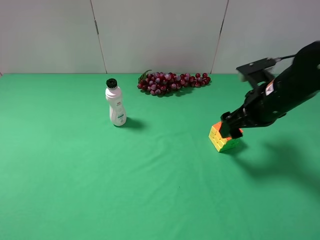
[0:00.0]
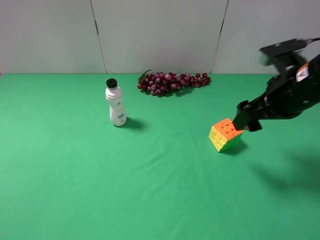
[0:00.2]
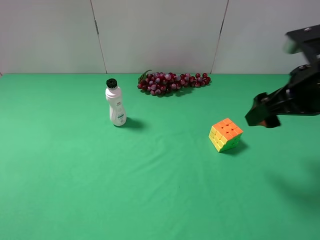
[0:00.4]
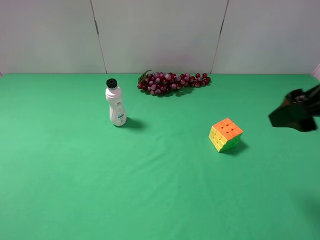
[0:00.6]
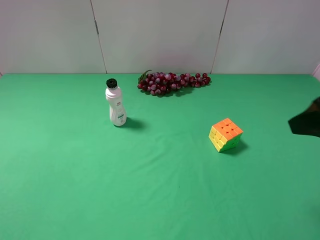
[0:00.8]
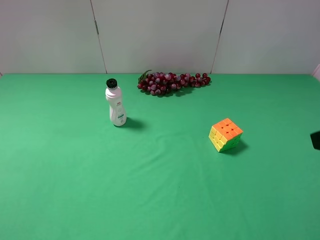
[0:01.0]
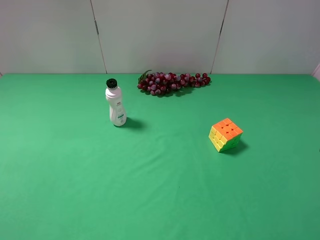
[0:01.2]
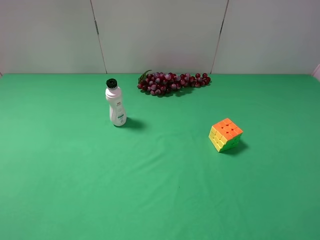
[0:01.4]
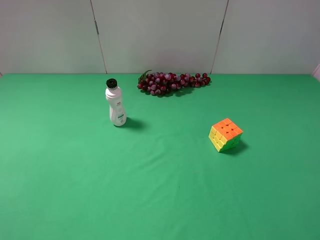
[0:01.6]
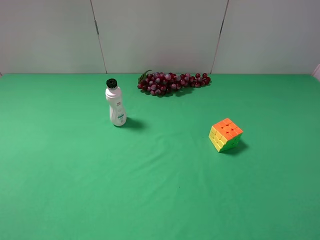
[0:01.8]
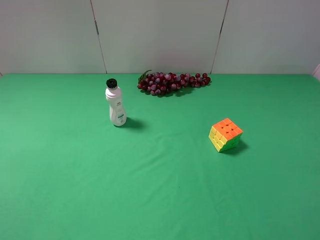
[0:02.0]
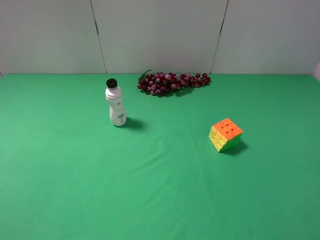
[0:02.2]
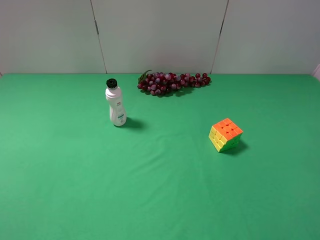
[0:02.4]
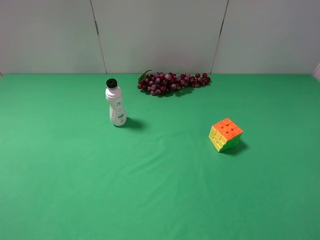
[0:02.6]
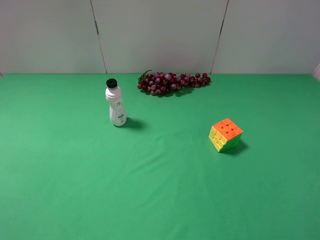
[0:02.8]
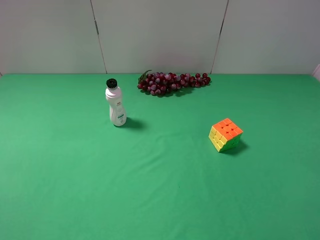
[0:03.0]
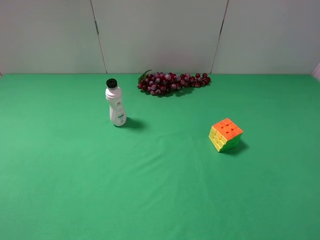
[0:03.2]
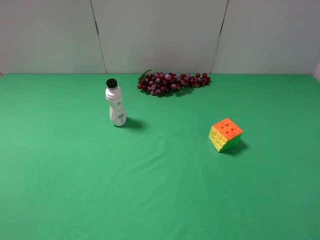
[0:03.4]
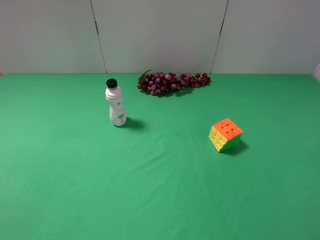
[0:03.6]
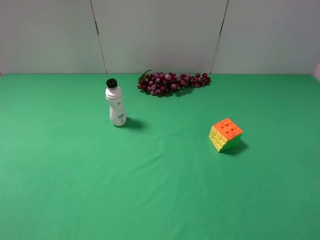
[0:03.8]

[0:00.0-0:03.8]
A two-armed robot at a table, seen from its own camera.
Task of the whole recording: use the left gripper to pick up the item and transfer it from the left gripper to the right gripper.
0:00.0 to 0:01.2: The right gripper travels backward and upward by about 20 cm.
0:02.6 to 0:03.8: The two grippers keep their place.

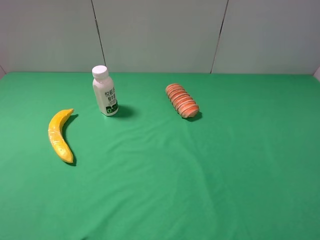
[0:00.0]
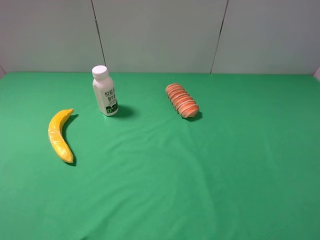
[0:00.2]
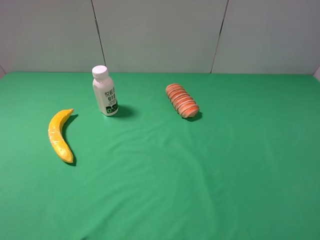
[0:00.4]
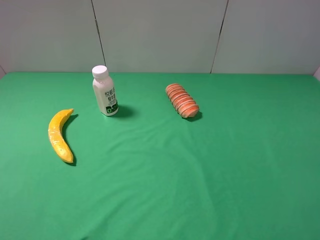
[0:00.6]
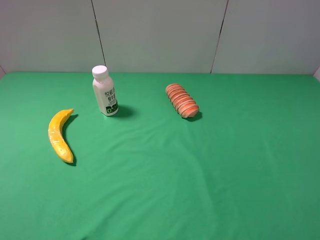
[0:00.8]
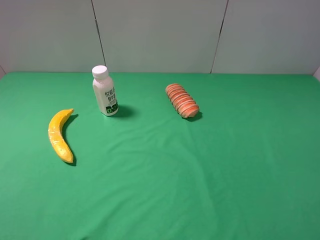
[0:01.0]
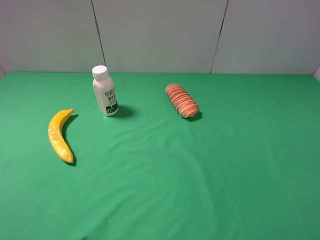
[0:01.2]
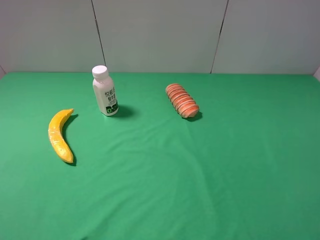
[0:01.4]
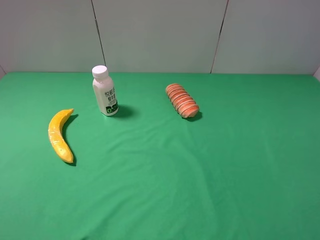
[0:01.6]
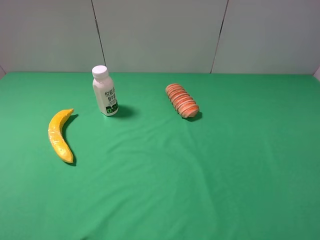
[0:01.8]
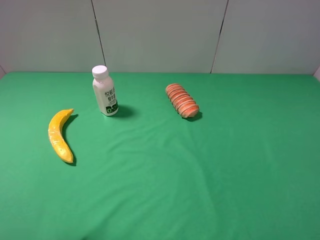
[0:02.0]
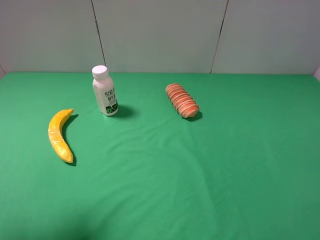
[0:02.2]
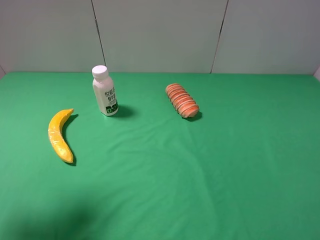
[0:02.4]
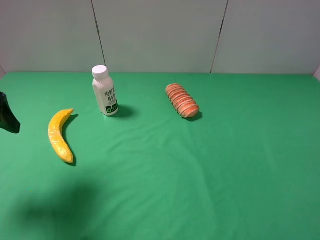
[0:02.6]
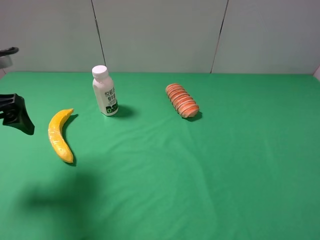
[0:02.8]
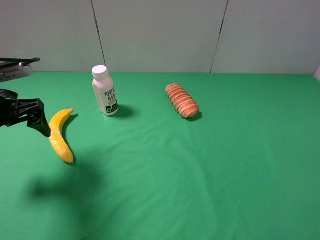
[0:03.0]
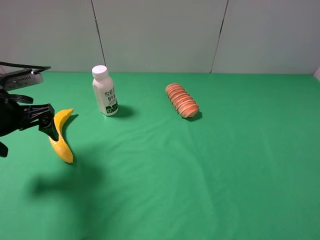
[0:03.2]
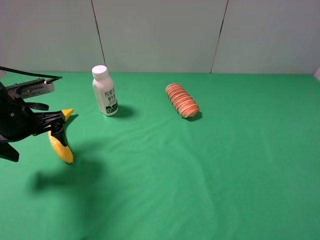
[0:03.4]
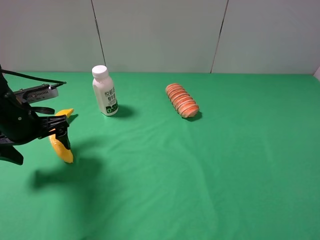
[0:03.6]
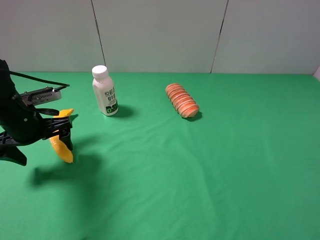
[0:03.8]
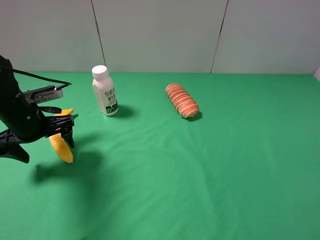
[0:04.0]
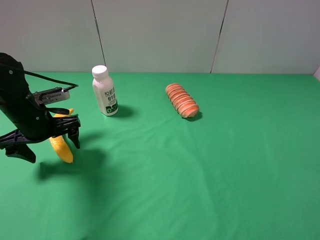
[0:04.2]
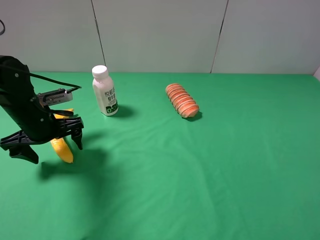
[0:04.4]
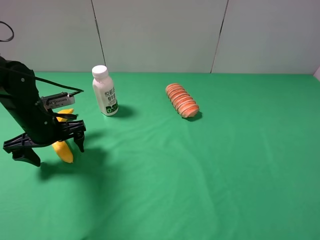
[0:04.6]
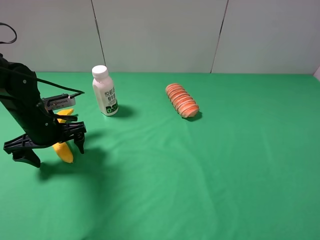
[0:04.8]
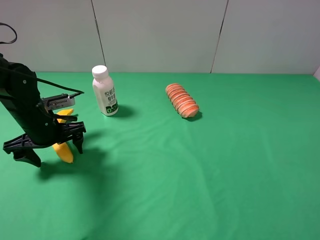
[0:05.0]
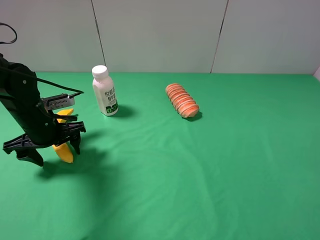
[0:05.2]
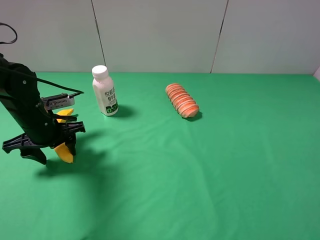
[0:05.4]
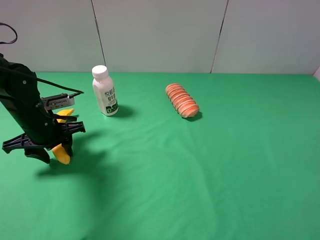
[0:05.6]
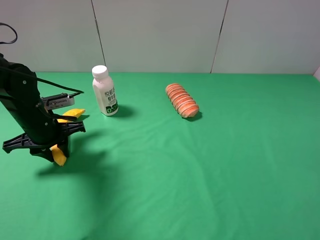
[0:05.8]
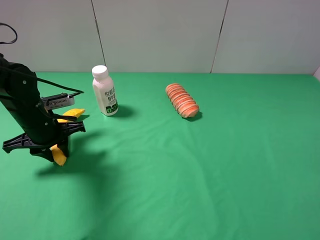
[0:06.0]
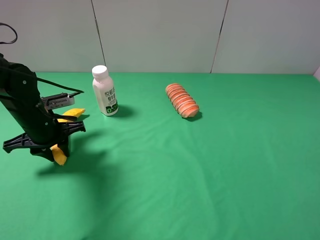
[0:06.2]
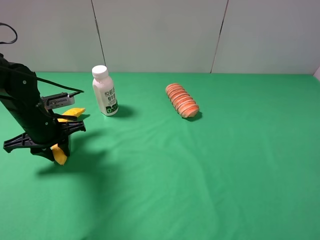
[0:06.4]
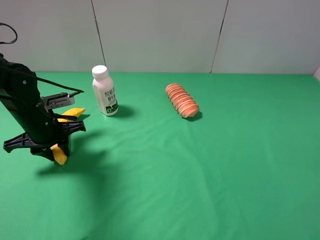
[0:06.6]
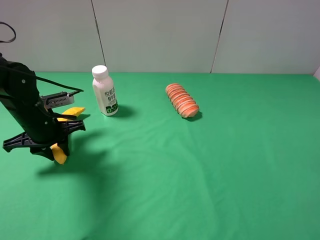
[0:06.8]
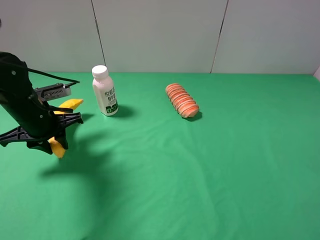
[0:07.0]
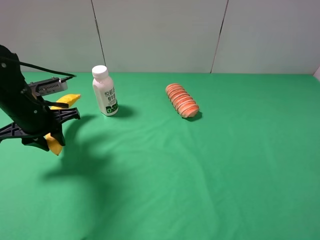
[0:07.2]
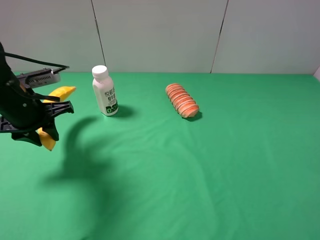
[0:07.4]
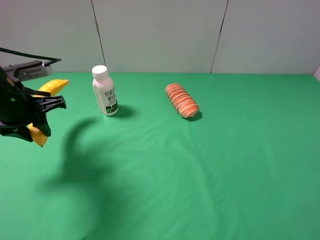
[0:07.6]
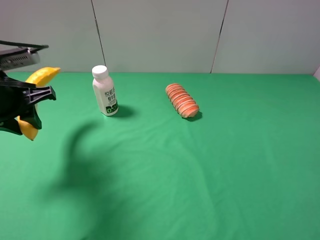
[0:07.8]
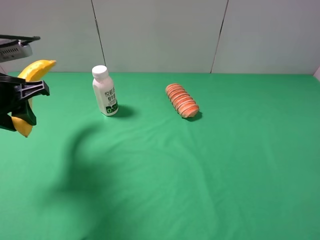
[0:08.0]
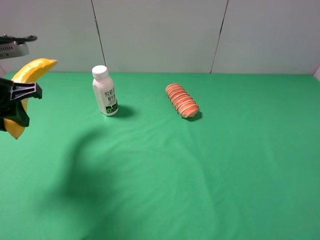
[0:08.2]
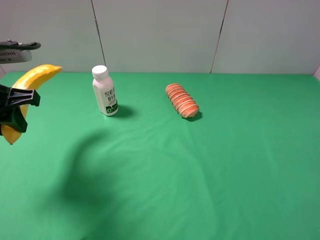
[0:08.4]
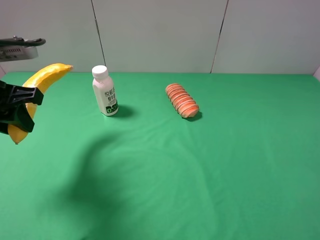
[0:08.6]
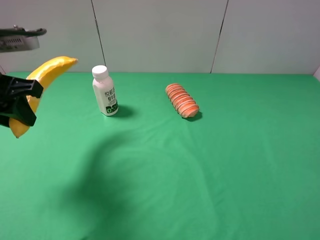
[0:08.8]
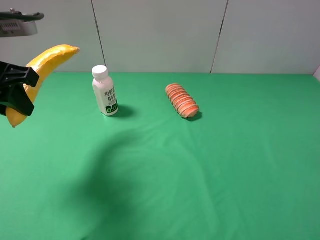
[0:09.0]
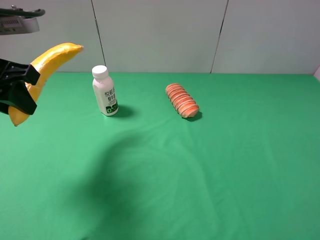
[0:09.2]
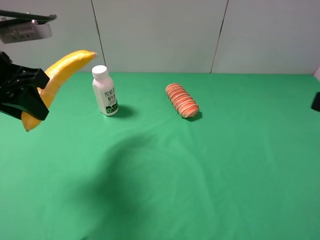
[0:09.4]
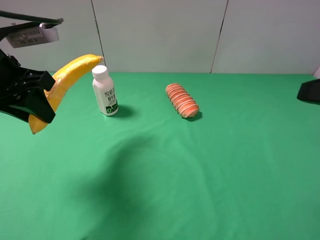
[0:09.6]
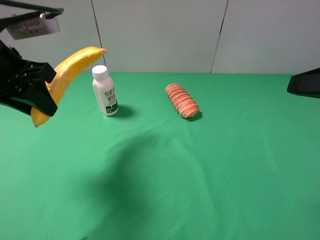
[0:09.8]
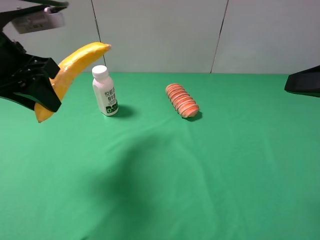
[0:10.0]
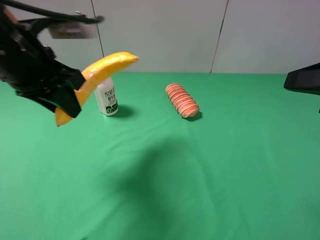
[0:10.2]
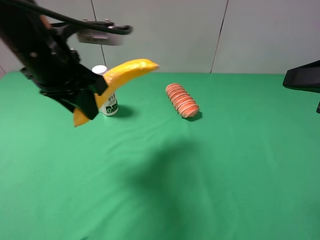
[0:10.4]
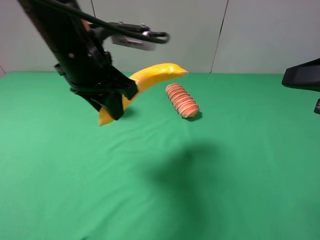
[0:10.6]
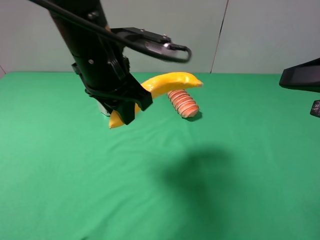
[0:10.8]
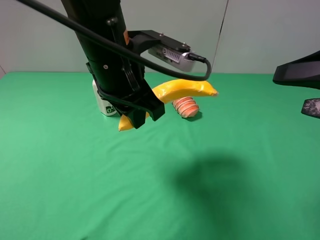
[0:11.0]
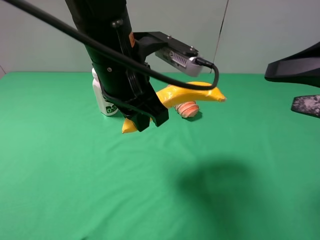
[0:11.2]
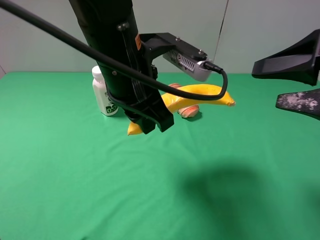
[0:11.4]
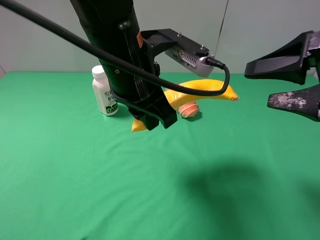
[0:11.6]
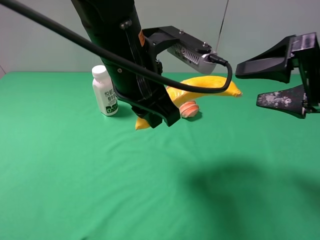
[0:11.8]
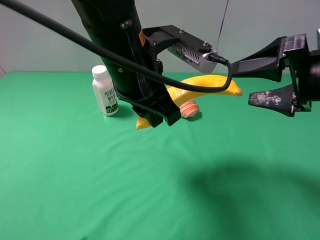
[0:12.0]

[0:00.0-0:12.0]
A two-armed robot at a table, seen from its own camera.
Task of the whole recording: use the left gripper to pick up the item and transfer it from the left gripper to the right gripper.
Step, 0:00.0 to 0:06.4: Use the left gripper to grab the banana on the left side of the table.
0:01.6 to 0:03.0: The left gripper is displaced forward and downward by approximately 25 cm.
0:03.0 to 0:04.4: The left gripper travels downward by about 10 cm.
0:04.4 to 0:06.0: The left gripper closes its fingers.
0:06.0 to 0:07.6: The left gripper heads upward, covering about 10 cm.
0:07.6 to 0:09.0: The left gripper shifts approximately 10 cm upward.
0:09.0 to 0:10.4: The left gripper moves to the right, roughly 10 cm, while the right gripper travels forward by roughly 10 cm.
0:10.4 to 0:12.0: The left gripper shifts some 10 cm to the right. Meanwhile the right gripper moves forward, approximately 10 cm.

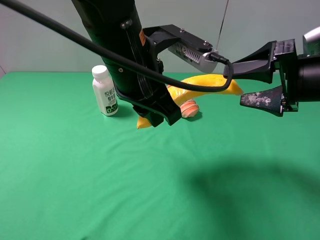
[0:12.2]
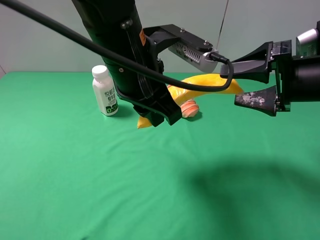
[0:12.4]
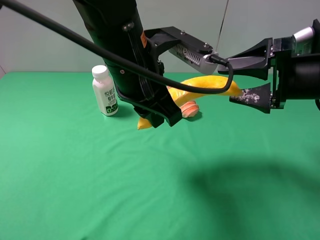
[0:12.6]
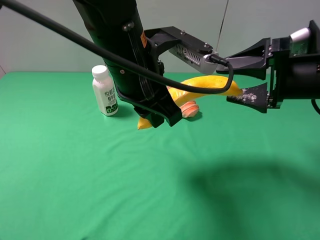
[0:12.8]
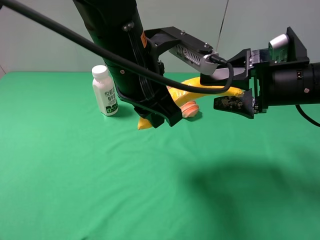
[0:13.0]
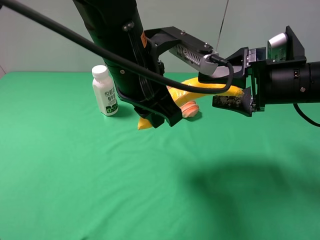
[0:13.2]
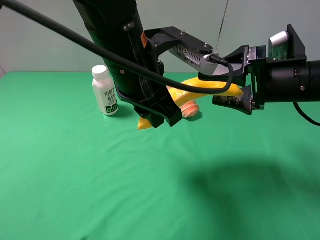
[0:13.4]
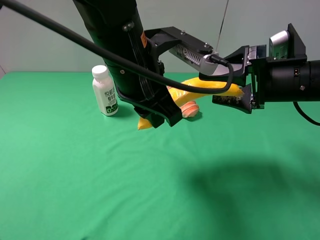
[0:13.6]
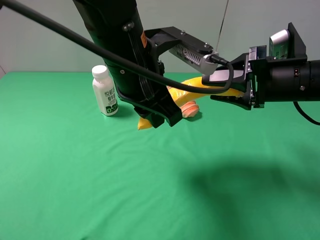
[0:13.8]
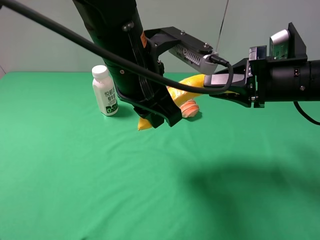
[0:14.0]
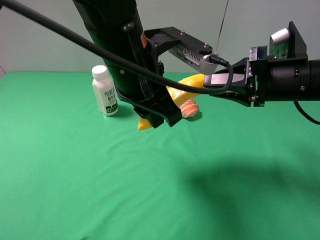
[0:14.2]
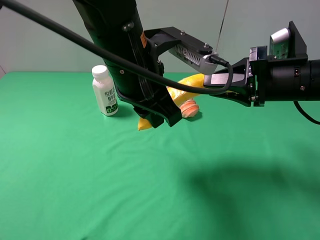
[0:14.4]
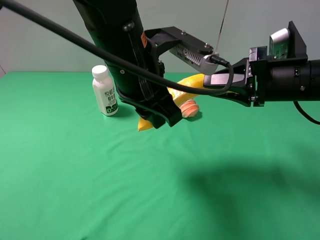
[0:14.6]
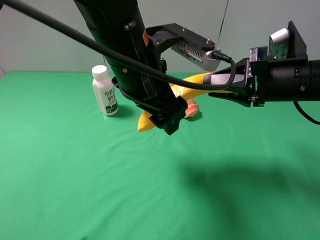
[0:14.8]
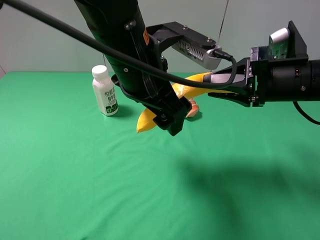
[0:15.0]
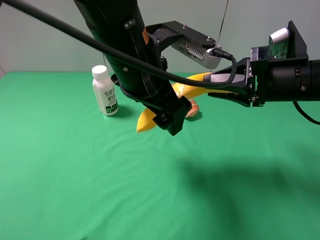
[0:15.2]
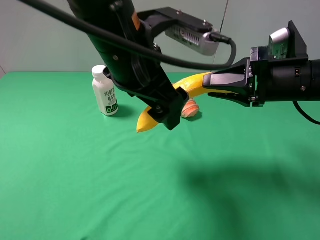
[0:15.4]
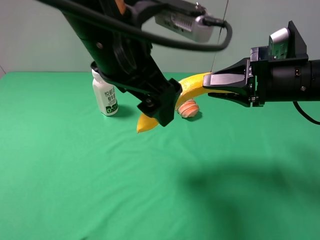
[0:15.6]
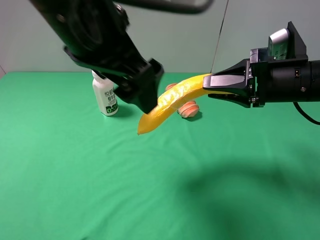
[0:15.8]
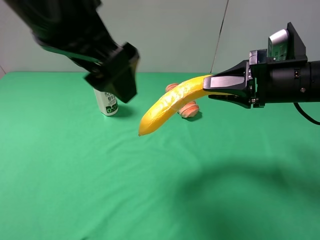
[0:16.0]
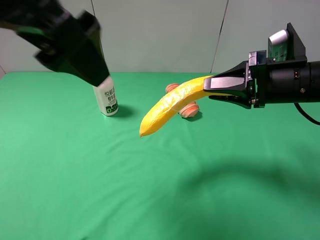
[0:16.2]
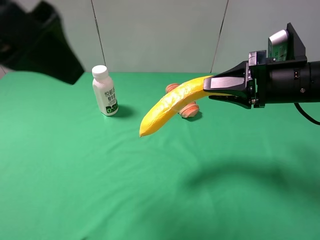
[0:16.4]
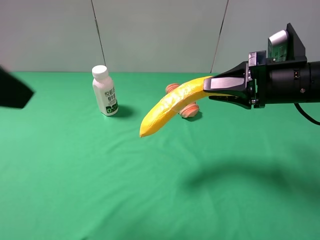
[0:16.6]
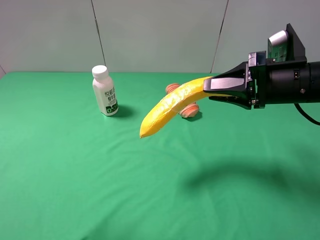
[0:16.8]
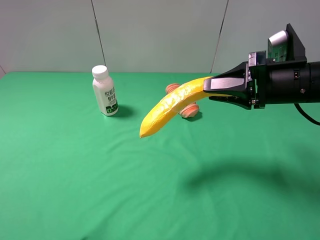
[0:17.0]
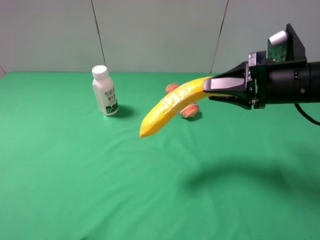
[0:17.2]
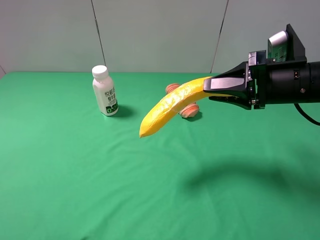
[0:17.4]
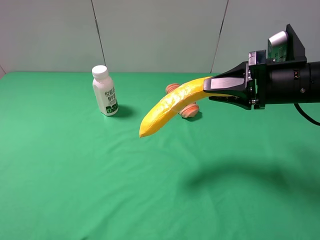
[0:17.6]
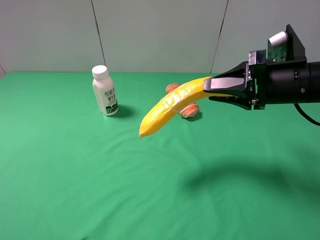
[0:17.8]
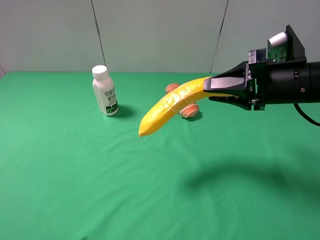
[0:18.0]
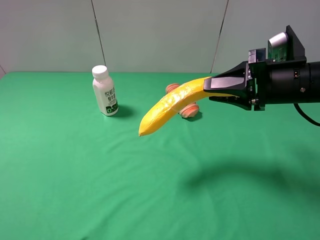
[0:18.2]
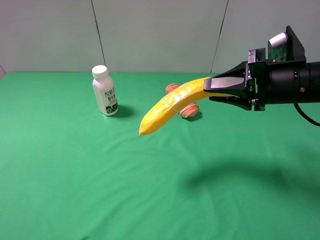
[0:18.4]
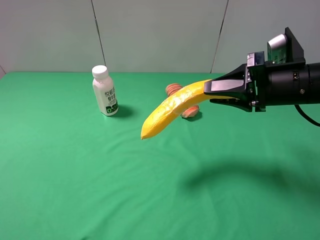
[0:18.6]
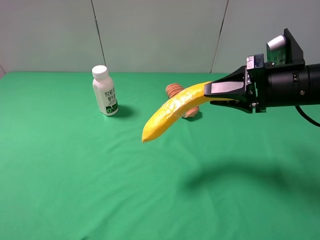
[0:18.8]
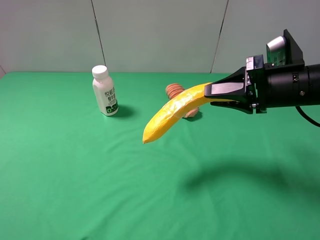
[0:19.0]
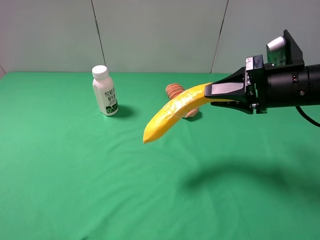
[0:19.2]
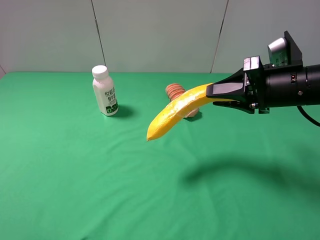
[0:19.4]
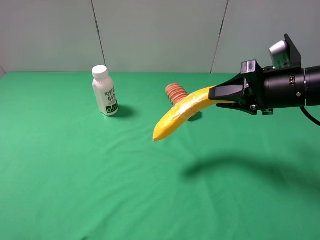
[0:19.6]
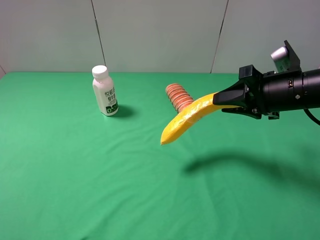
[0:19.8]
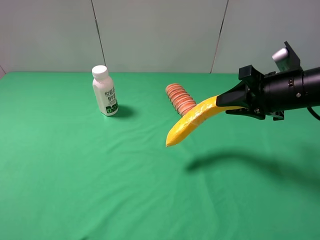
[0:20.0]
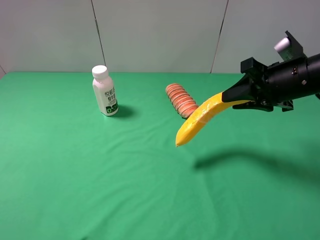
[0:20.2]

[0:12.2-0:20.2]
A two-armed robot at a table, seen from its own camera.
Task of the whole recording: use the left gripper to pick up the item and transfer it from the left gripper to the right gripper.
Step, 0:12.2 to 0:15.4: Pass the banana to the right gripper.
0:12.2 to 0:13.8: The right gripper closes its fingers.
0:13.8 to 0:15.4: The left gripper opens up.
0:15.4 to 0:17.0: The left gripper heads to the left and backward, covering approximately 30 cm.
0:17.0 to 0:18.6: The left gripper travels downward by about 10 cm.
